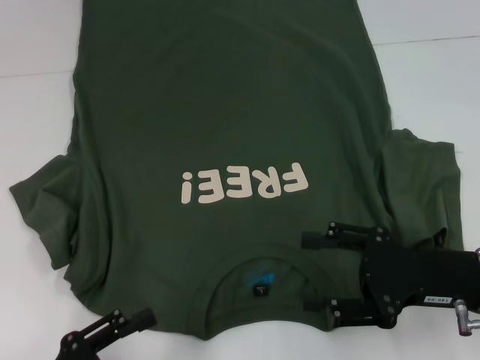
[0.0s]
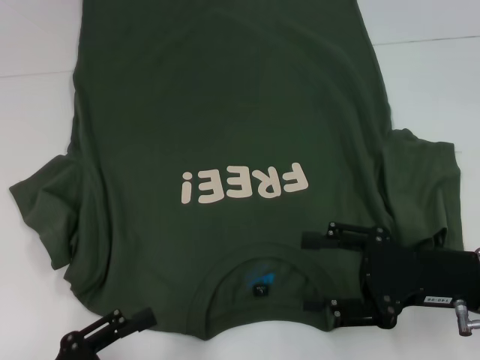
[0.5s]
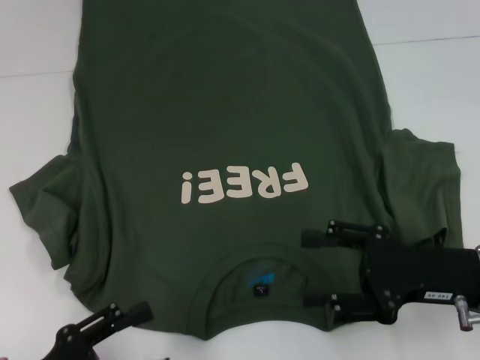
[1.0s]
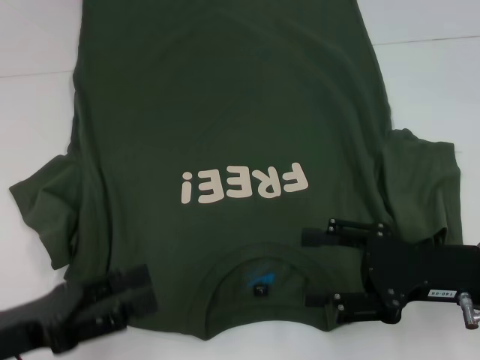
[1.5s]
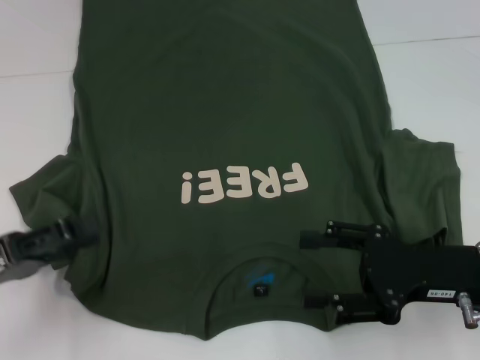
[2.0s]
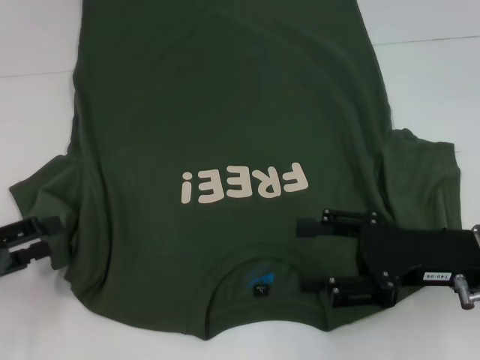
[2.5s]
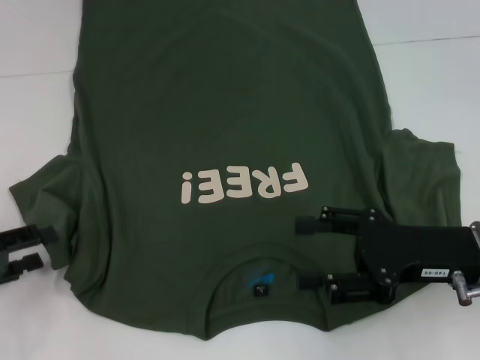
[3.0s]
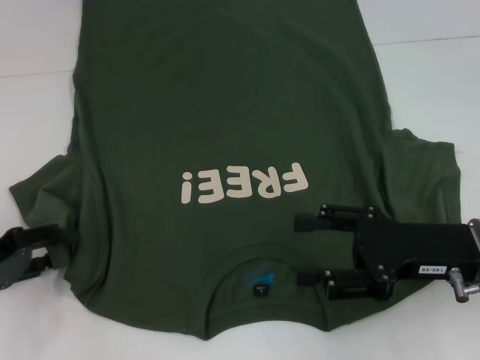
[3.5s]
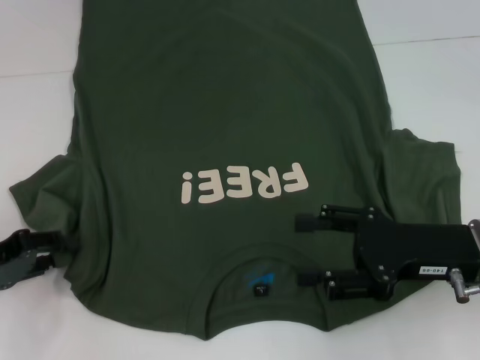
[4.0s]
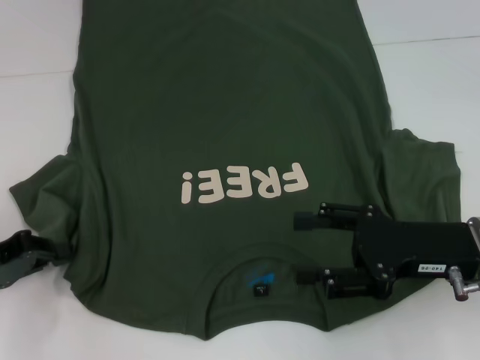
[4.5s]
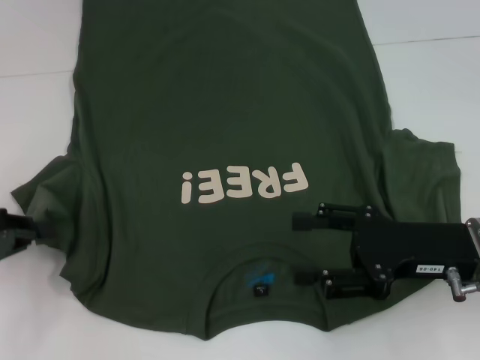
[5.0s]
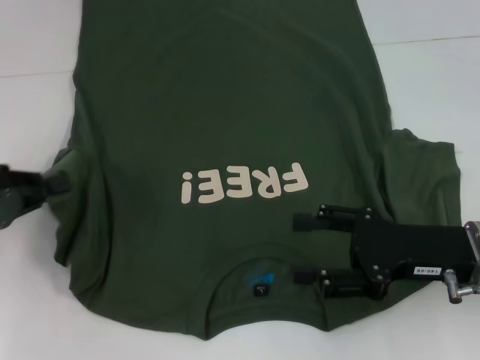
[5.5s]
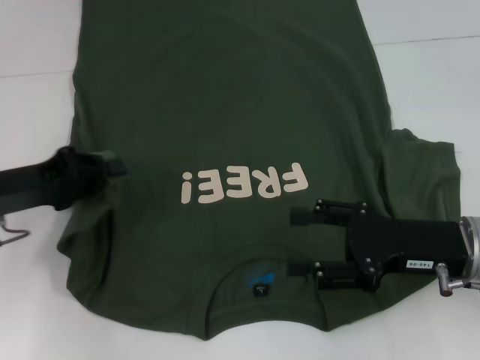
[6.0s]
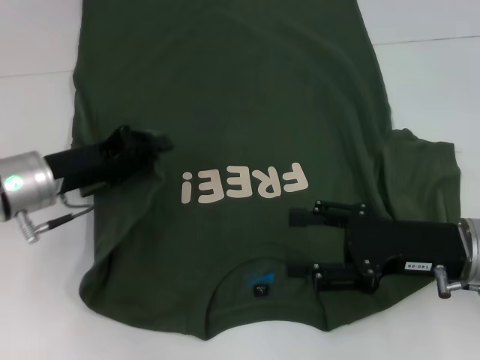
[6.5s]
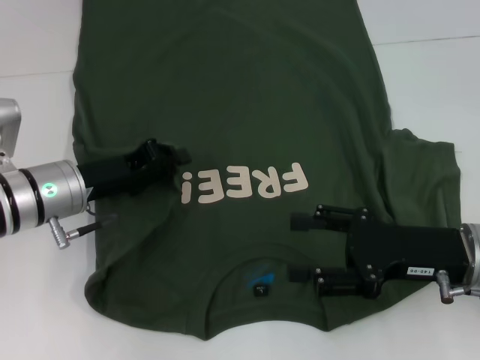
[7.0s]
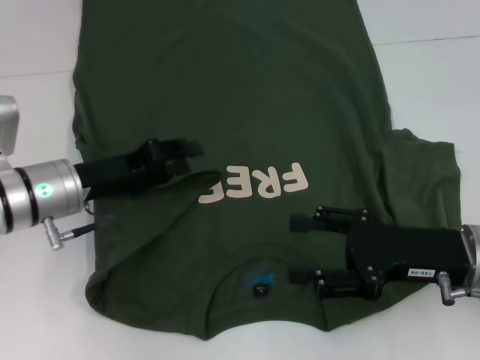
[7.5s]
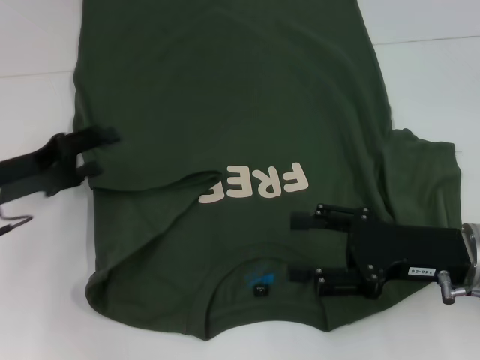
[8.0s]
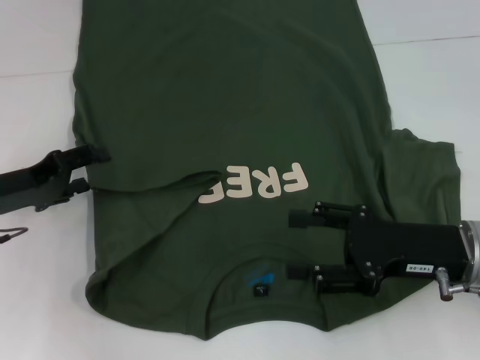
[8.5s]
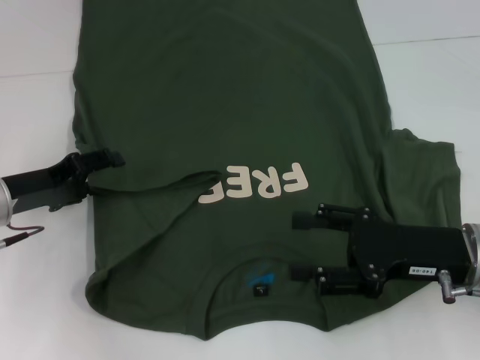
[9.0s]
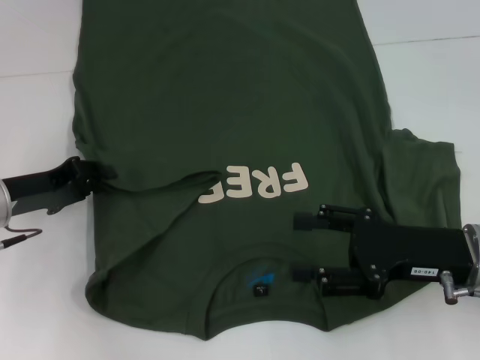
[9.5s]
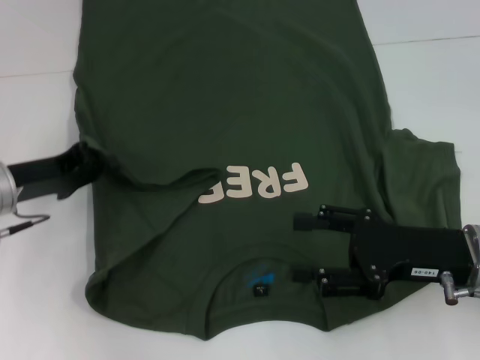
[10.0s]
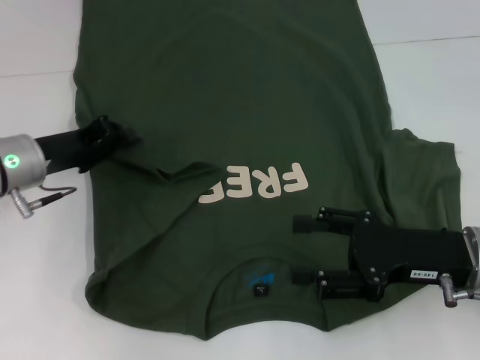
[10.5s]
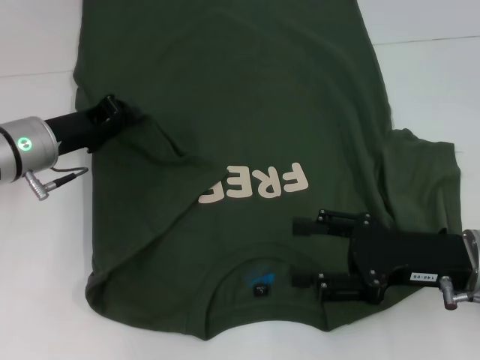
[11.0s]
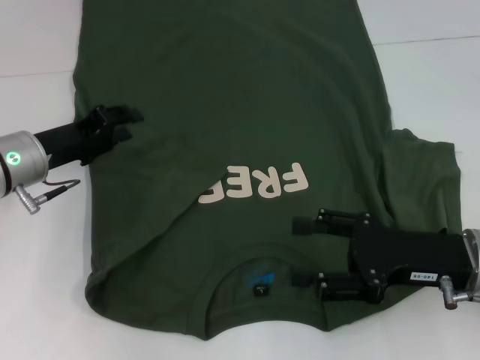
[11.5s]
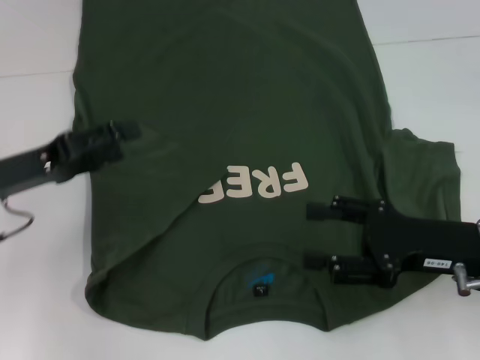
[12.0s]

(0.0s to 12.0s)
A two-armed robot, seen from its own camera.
Step, 0.0s - 11.5s: Fold the bottom left sleeve with your left hand.
0.0s - 2.0s: The left gripper moves forward and upward, approximately 10 cm.
2.0s - 4.0s: The left gripper changes place by approximately 5 cm.
4.0s - 6.0s: The left gripper goes some 5 cm to the right, and closes.
6.0s - 8.0s: The left gripper reaches approximately 10 cm to the right, then returns, and opens.
8.0s - 10.0s: The left gripper closes.
10.0s - 12.0s: The left gripper opens up.

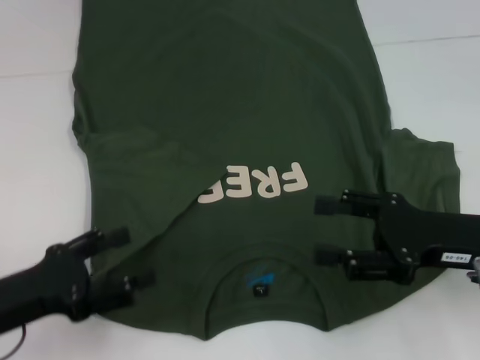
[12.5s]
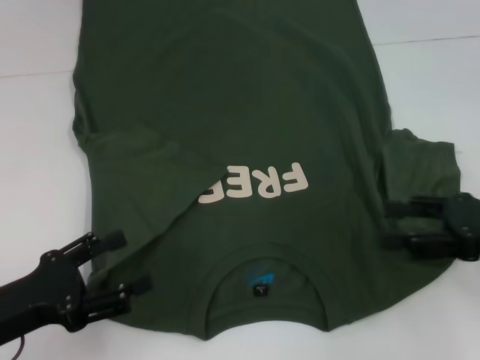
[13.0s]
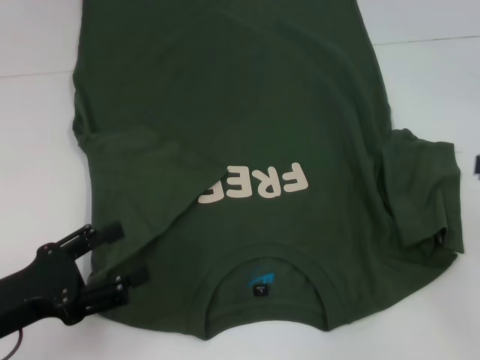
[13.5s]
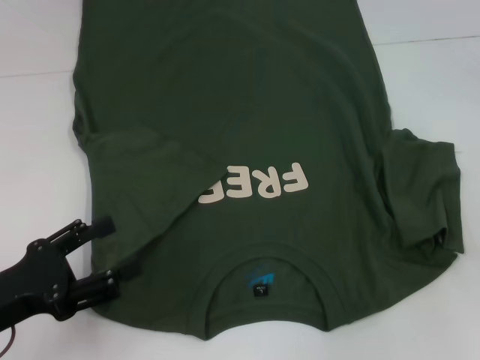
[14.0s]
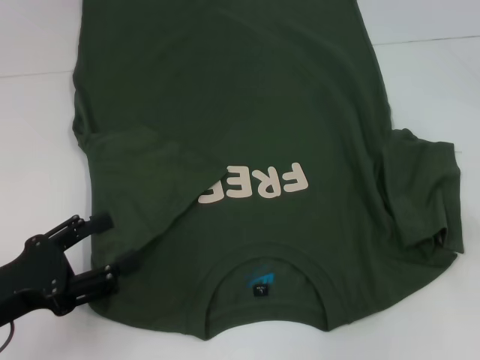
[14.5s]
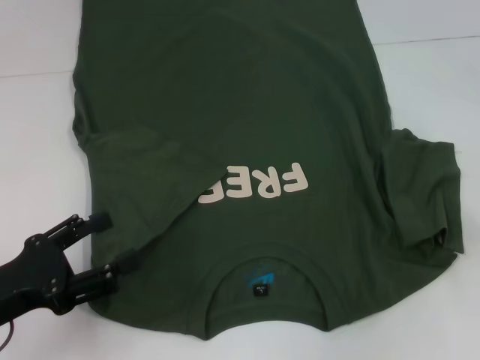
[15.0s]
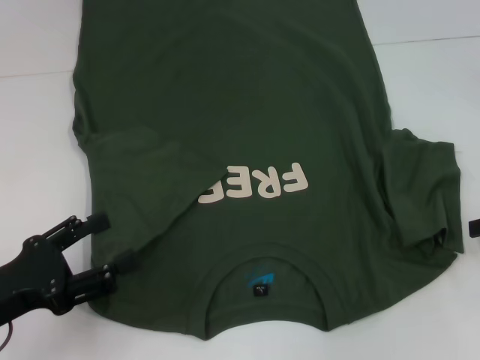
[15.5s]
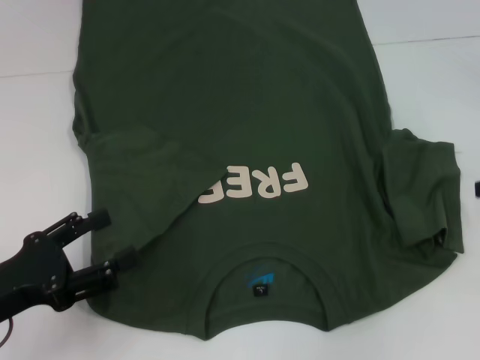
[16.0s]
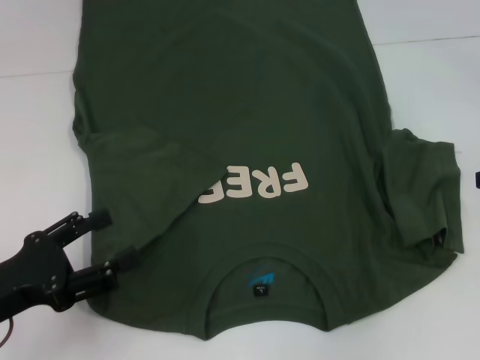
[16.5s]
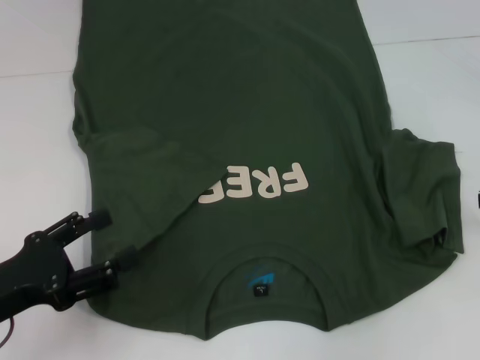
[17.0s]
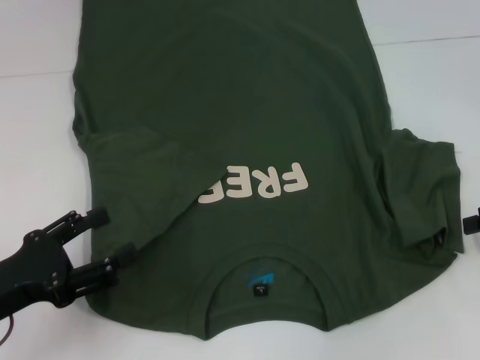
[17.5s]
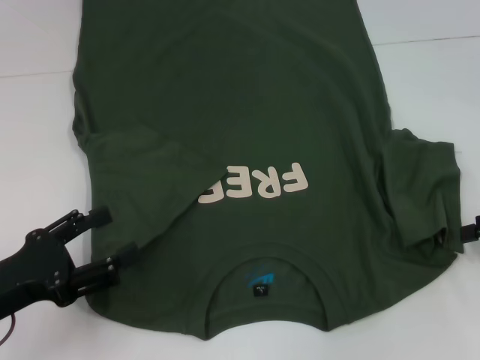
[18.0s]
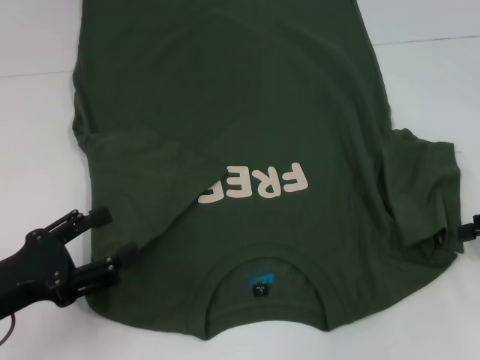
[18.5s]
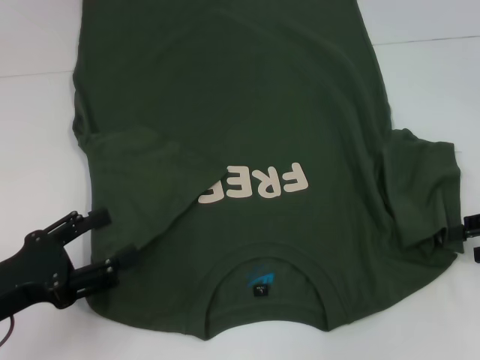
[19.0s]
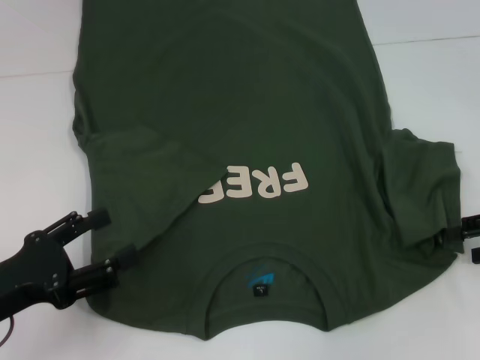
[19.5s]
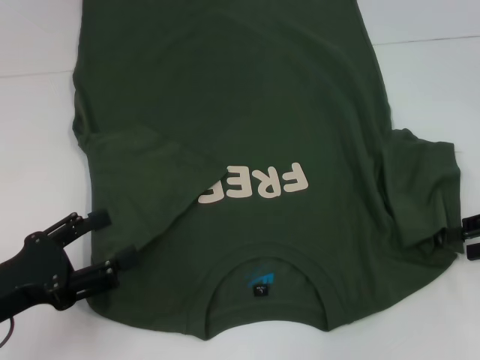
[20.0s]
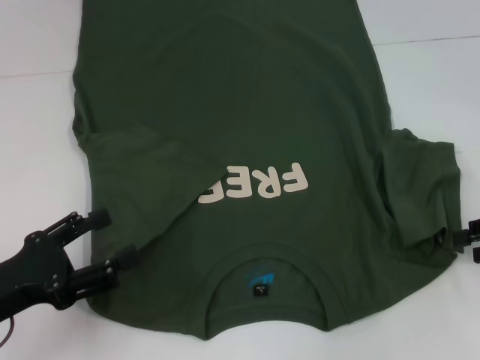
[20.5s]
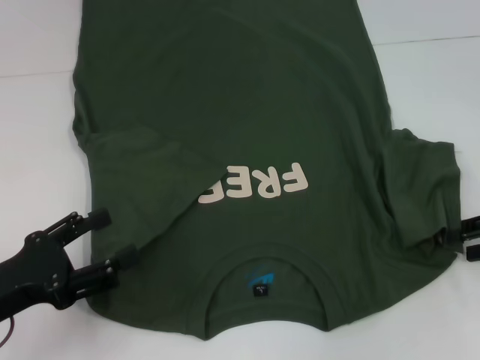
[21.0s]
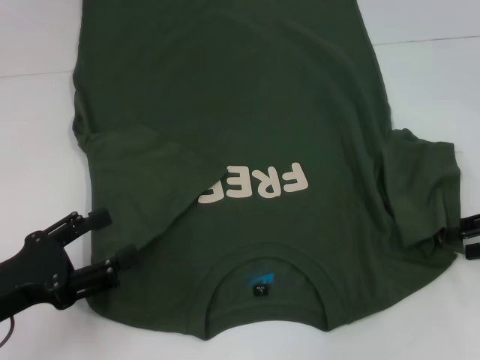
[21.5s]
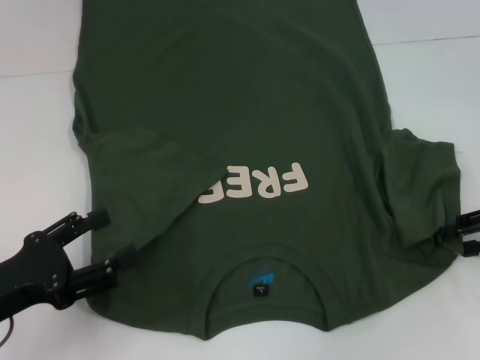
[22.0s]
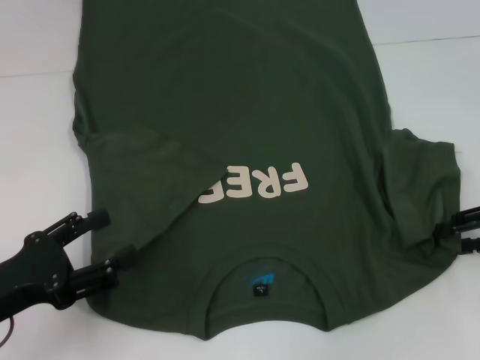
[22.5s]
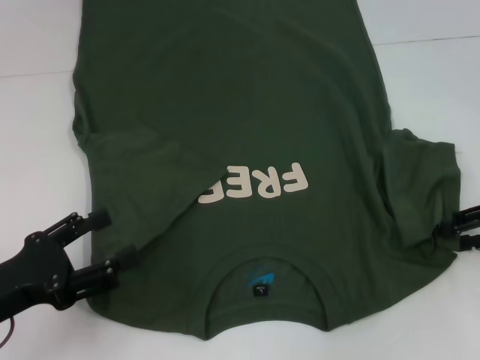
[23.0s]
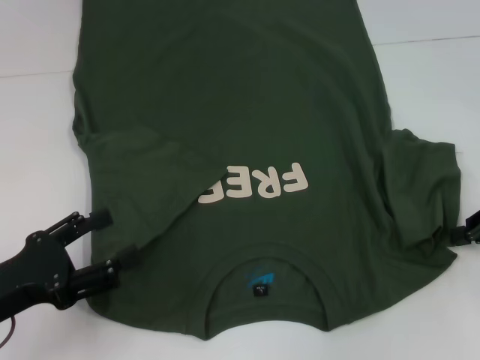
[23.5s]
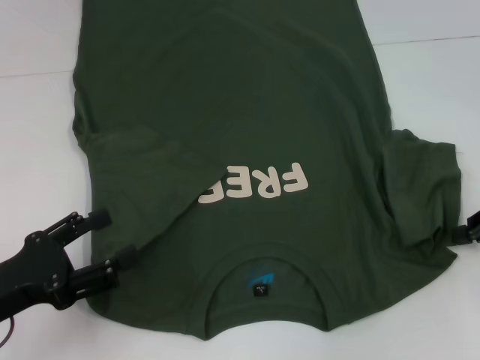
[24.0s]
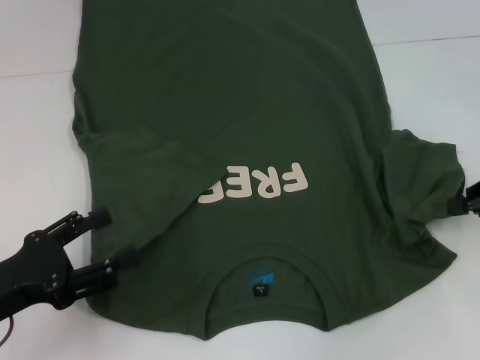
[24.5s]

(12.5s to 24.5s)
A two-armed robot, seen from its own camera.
12.5s - 14.5s: The right gripper heads to the right and upward, covering some 15 cm.
14.5s - 16.5s: The grippers make only small movements.
18.5s - 20.5s: Both grippers stay put.
22.5s - 24.5s: The right gripper closes.

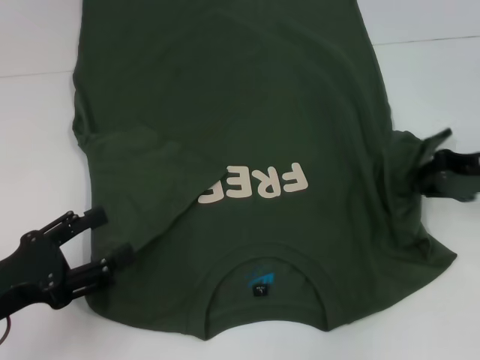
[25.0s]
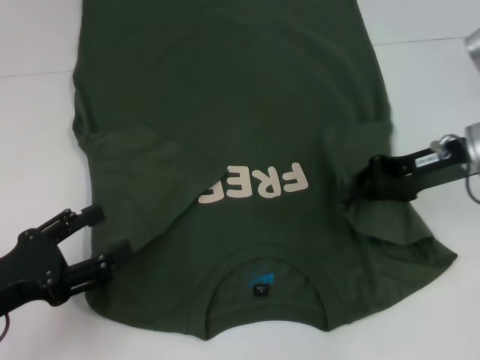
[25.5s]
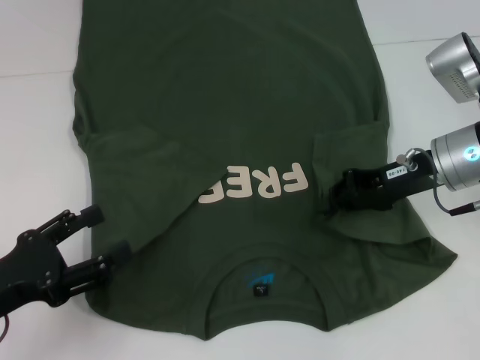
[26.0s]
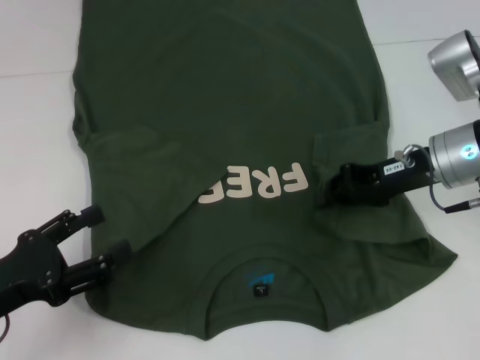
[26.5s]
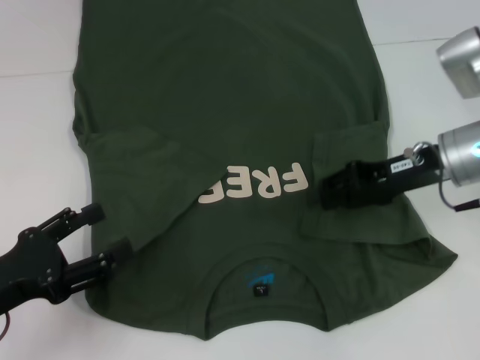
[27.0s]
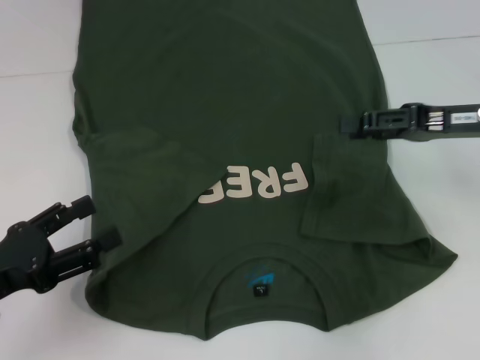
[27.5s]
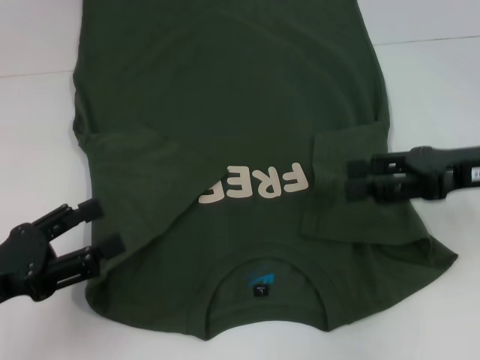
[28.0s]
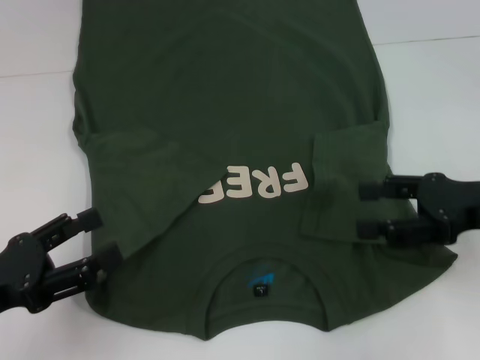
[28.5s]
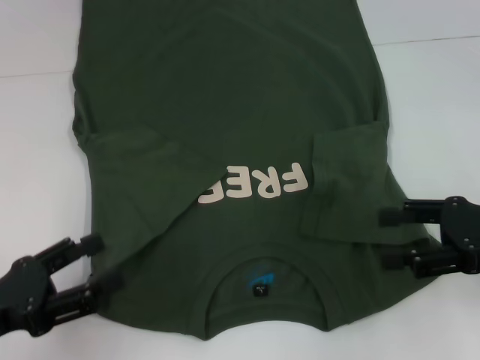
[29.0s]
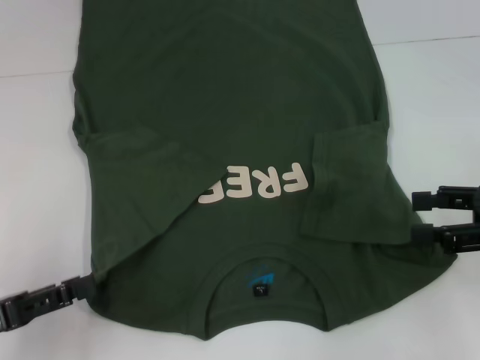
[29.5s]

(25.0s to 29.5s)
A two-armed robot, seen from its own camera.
Step, 25.0s - 27.0s: Fold the bottom right sleeve with your right hand.
25.0s - 27.0s: The right gripper shifts about 10 cm to the left.
27.0s - 29.5s: The right gripper shifts approximately 15 cm backward and to the right, and opens up.
